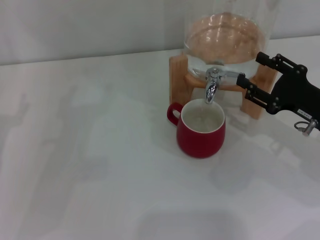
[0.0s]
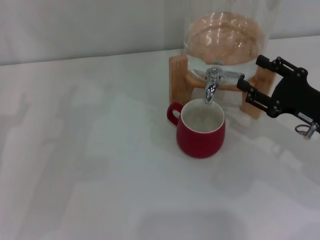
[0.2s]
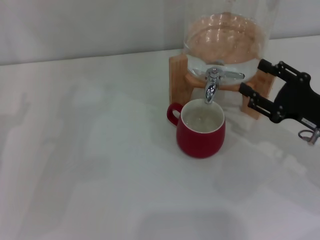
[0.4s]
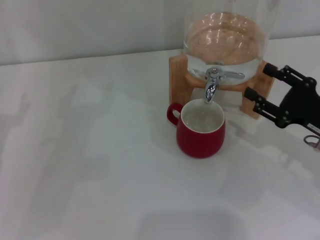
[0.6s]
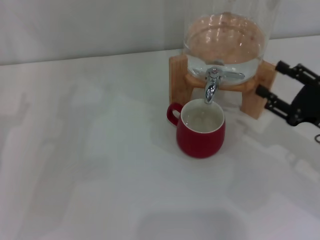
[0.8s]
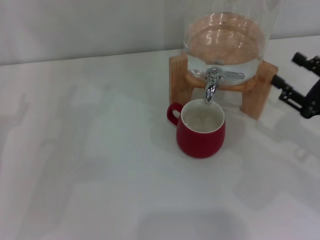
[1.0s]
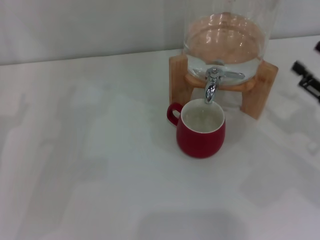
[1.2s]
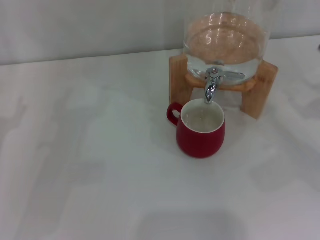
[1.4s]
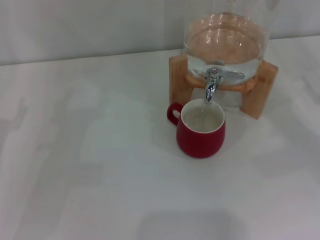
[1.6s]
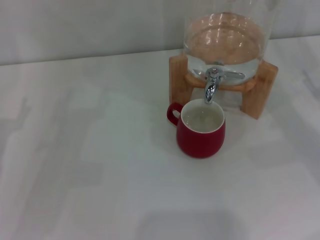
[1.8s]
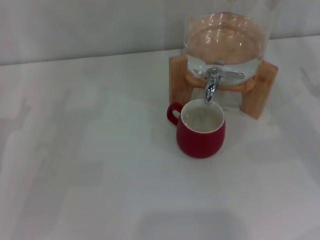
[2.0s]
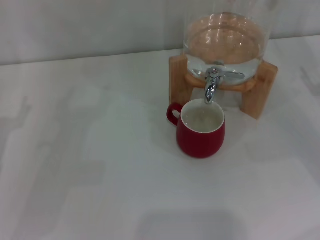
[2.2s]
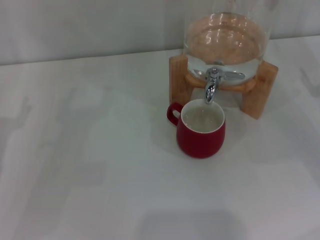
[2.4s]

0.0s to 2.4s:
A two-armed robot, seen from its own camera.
Task of the whole recording: the left gripper pick up the red cup and place it horizontally under the faucet, the right gripper turn on the faucet to fill the cup, and then turn off the faucet.
0.0s to 1.2s: The right gripper heads to the right, covering about 5 cm.
1.2s to 2.4s: The right gripper moves some 5 cm.
